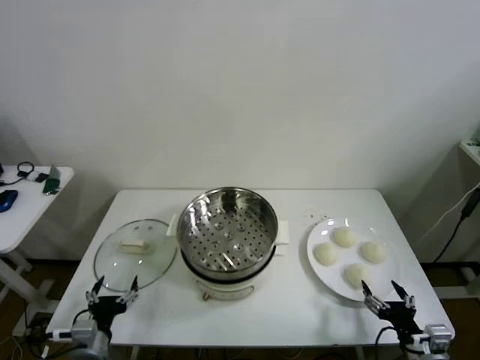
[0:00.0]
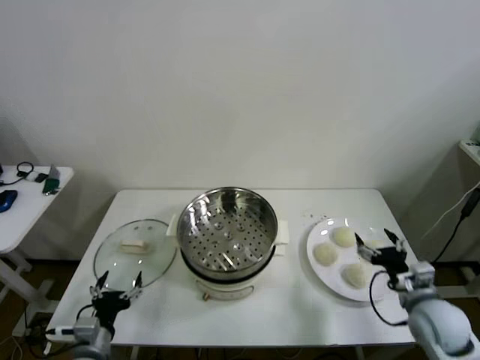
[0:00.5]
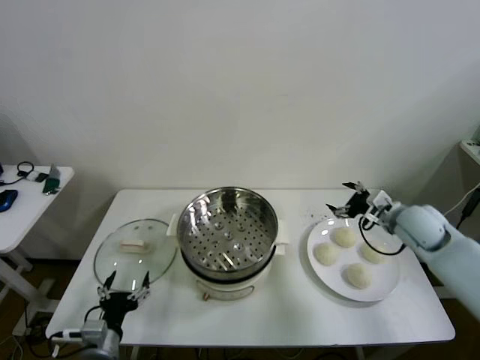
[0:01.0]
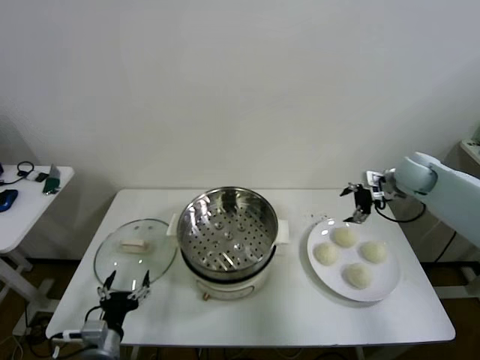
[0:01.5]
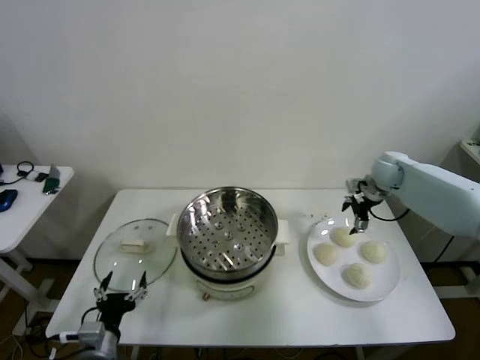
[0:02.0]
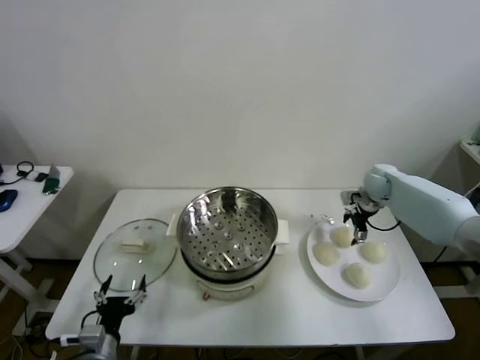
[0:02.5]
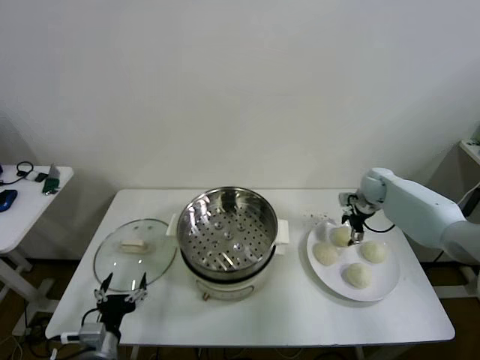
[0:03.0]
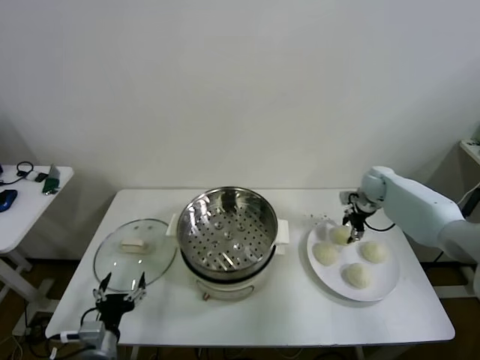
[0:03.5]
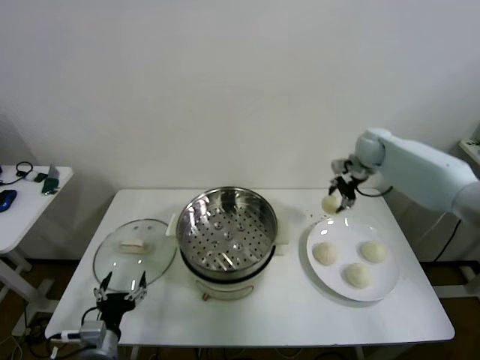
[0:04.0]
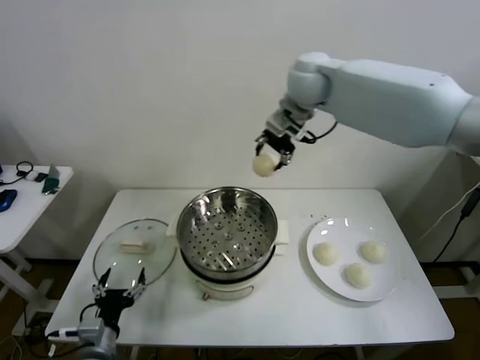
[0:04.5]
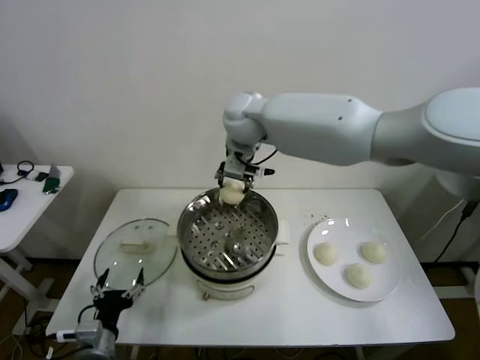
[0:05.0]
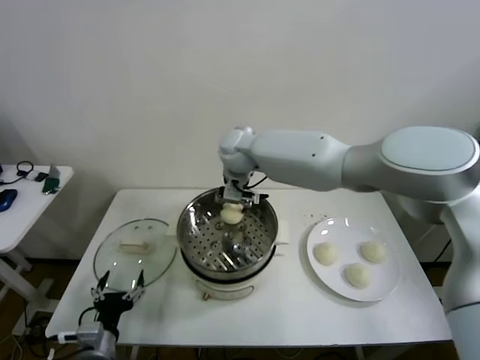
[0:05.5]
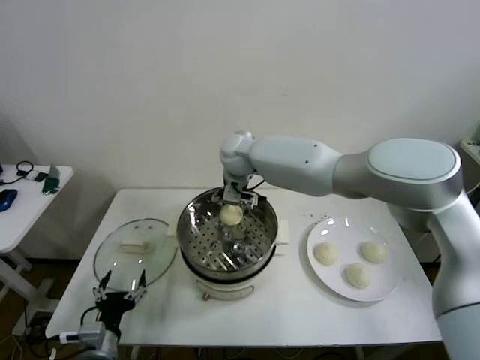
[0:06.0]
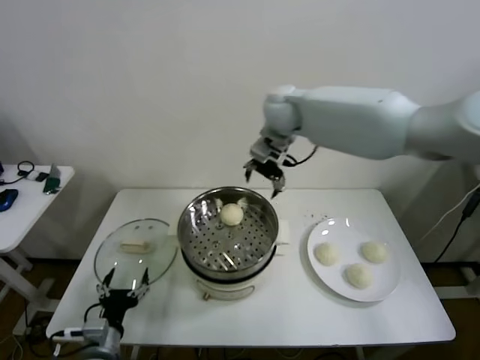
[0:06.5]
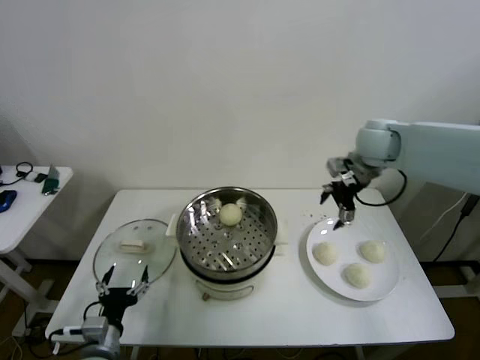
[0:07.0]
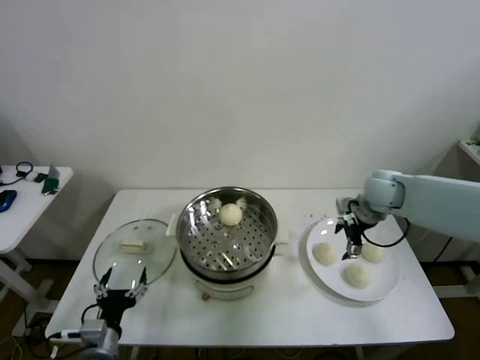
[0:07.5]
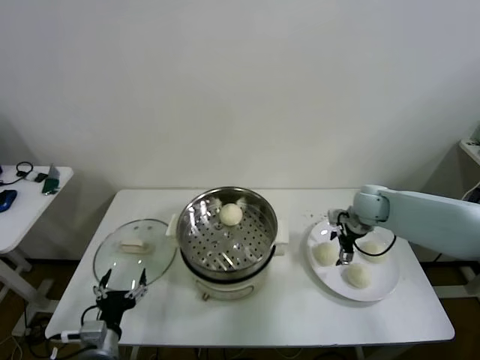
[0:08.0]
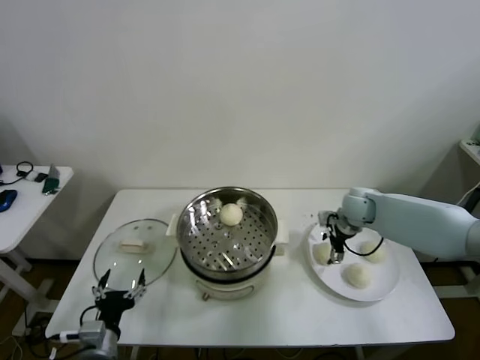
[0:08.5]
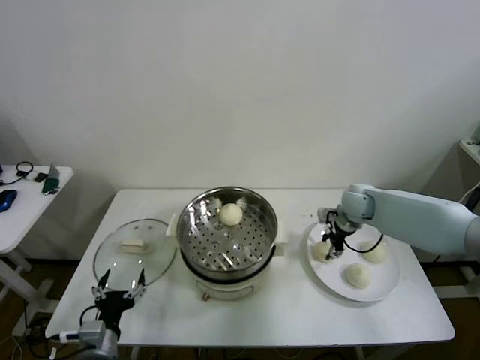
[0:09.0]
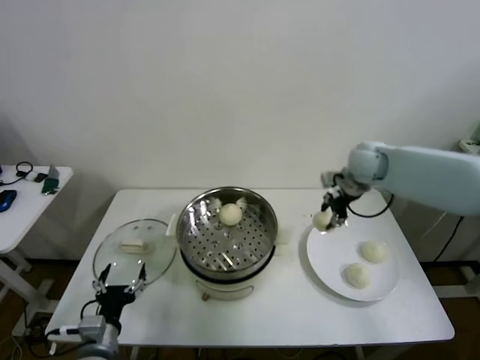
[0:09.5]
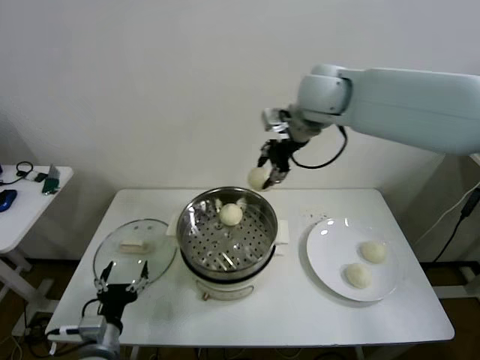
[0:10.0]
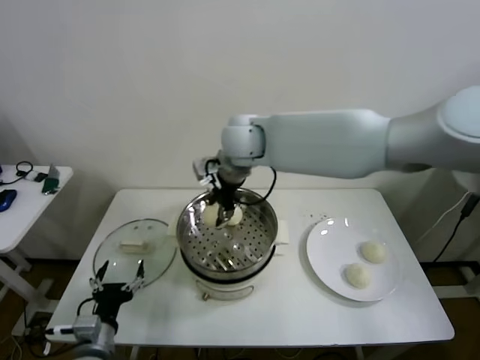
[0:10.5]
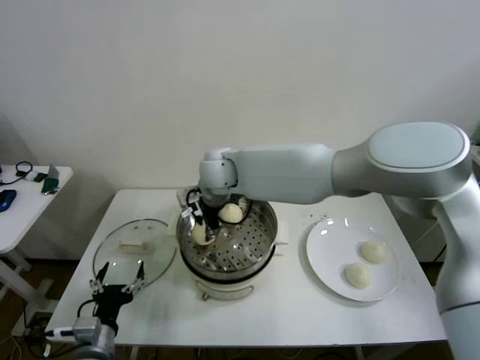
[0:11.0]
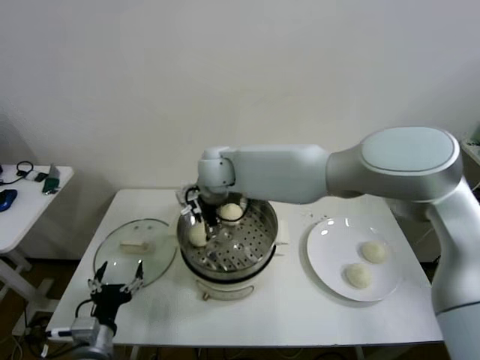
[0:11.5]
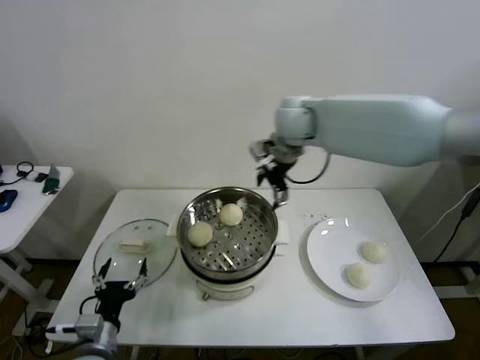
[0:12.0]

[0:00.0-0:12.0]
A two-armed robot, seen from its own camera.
Step, 0.0 to 3.0 s: Grasp the baozi in the plate with right gripper.
Step, 3.5 to 5.5 s: Place the baozi on the steamer with right gripper.
Step, 6.0 to 8.5 s: Grasp the baozi in the plate with right gripper.
Step, 9.0 to 11.0 s: Place the baozi on the steamer with right gripper.
2.0 to 4.0 s: The right gripper goes about 20 cm upward and to the left, and closes.
4.0 to 6.0 s: The right gripper moves to the left, some 25 cm, and opens its fingers.
6.0 to 8.0 s: The right gripper heads to the right and downward, covering approximately 35 cm.
8.0 to 10.0 s: The right gripper heads upward and to the left, covering some 35 cm, and closes up.
10.0 to 12.0 s: The right gripper heads to the right and downward, covering some 10 cm, and opens.

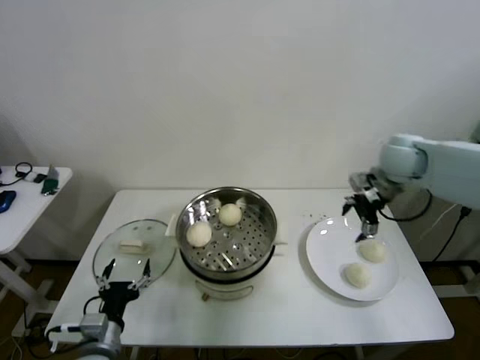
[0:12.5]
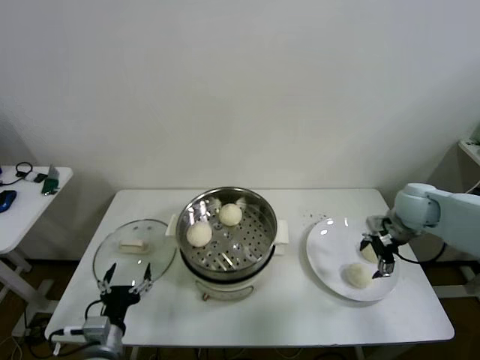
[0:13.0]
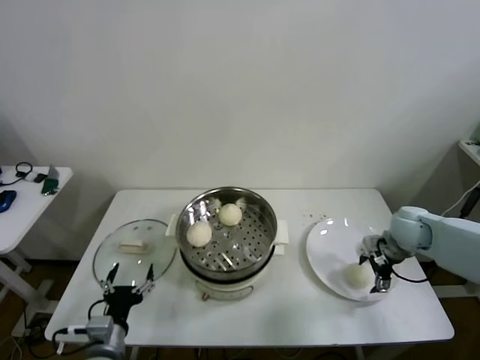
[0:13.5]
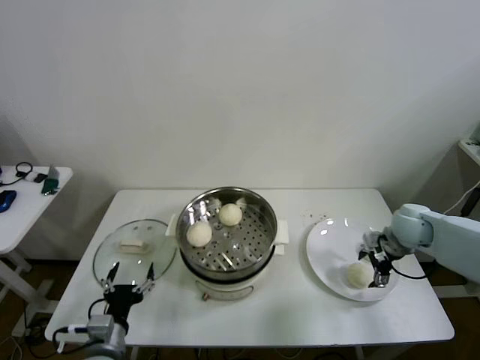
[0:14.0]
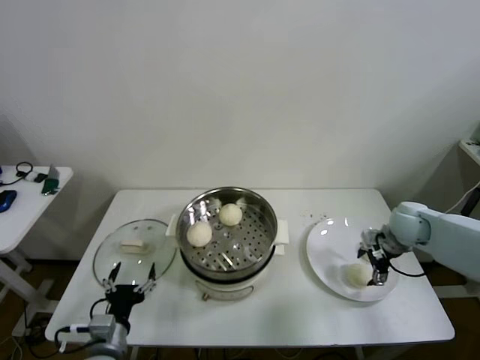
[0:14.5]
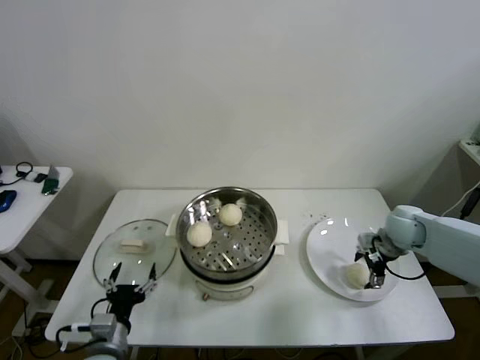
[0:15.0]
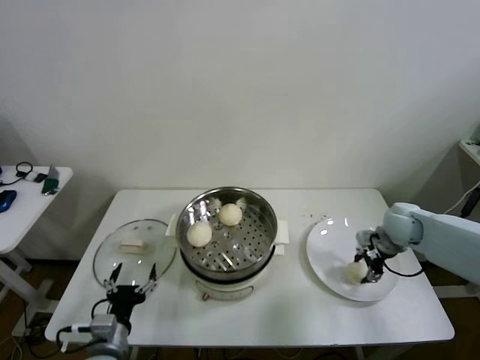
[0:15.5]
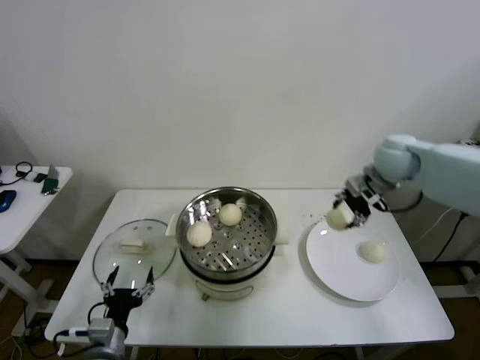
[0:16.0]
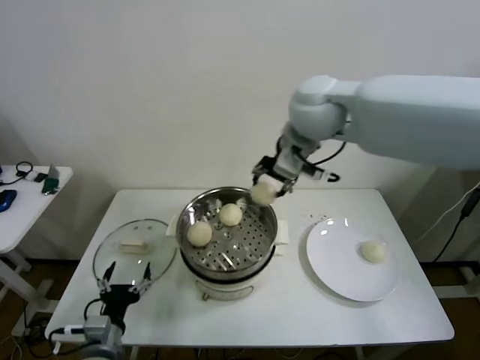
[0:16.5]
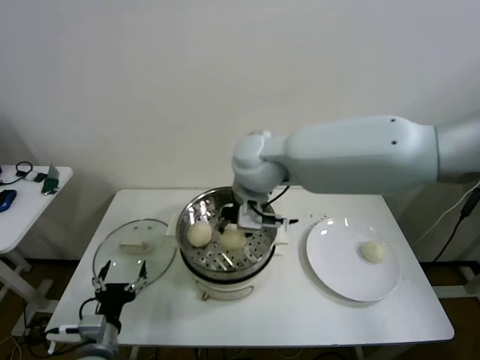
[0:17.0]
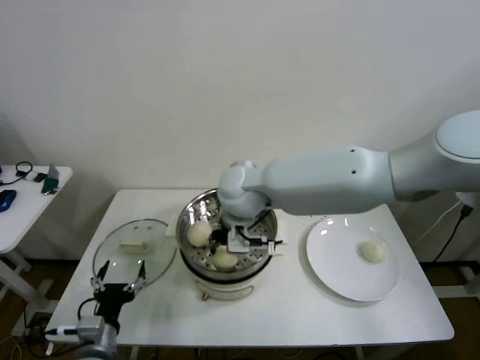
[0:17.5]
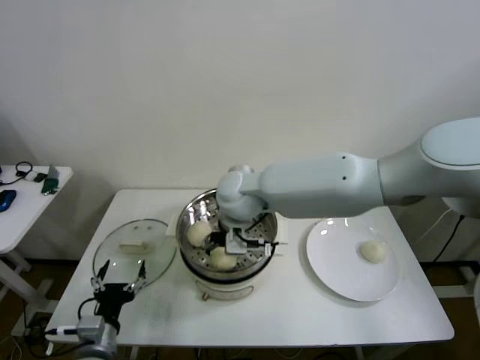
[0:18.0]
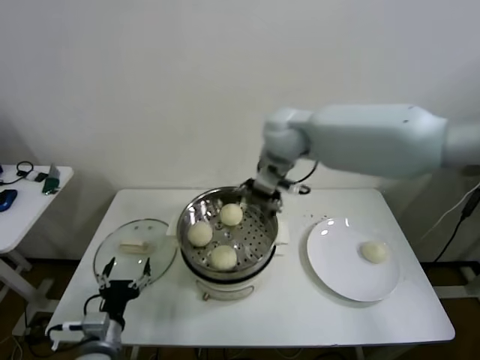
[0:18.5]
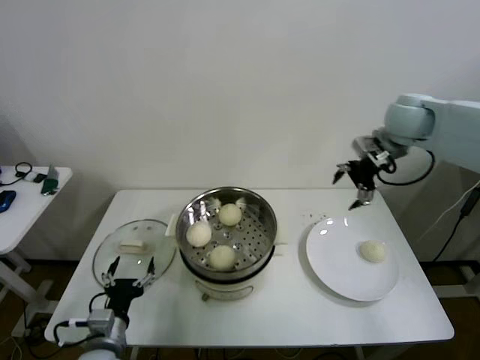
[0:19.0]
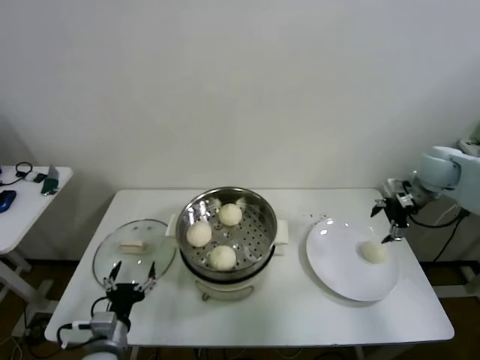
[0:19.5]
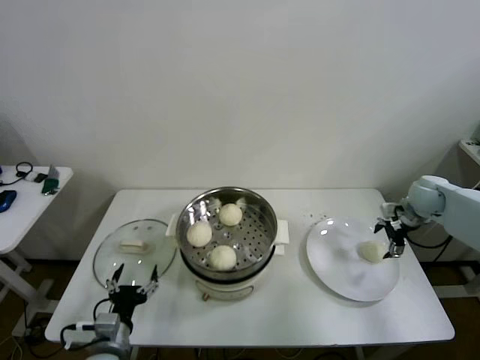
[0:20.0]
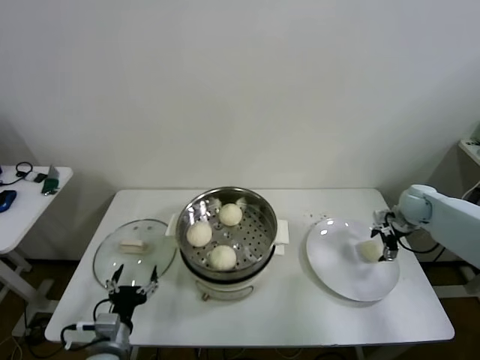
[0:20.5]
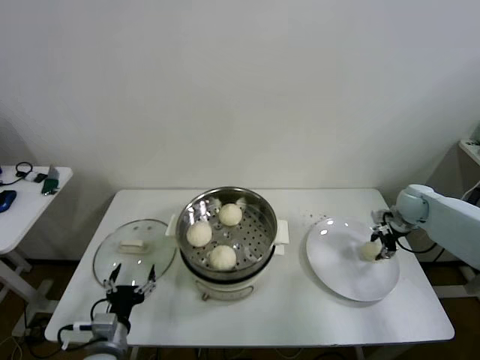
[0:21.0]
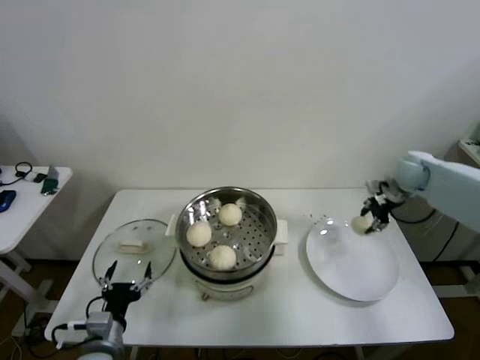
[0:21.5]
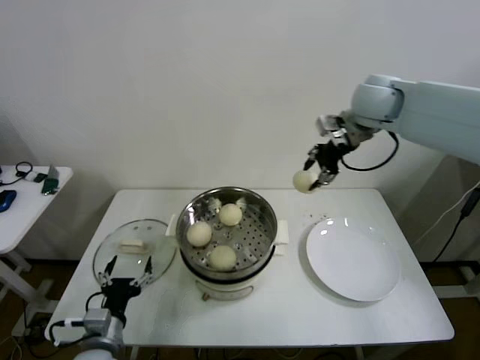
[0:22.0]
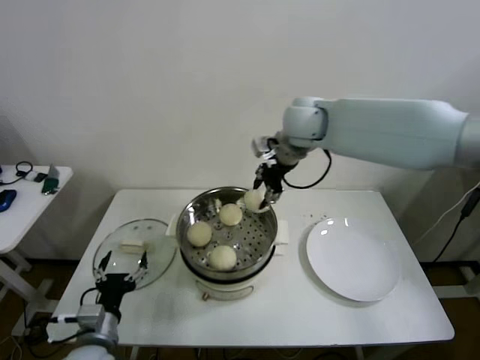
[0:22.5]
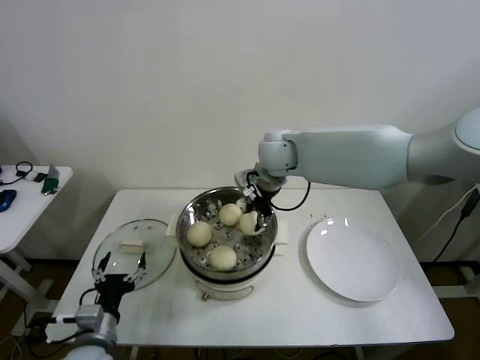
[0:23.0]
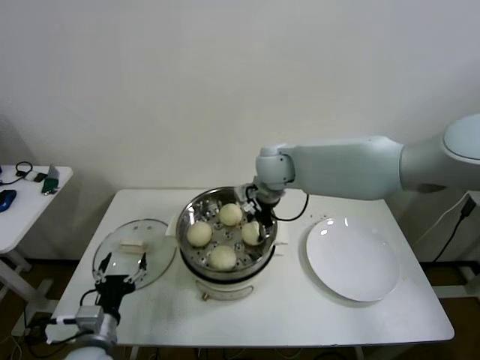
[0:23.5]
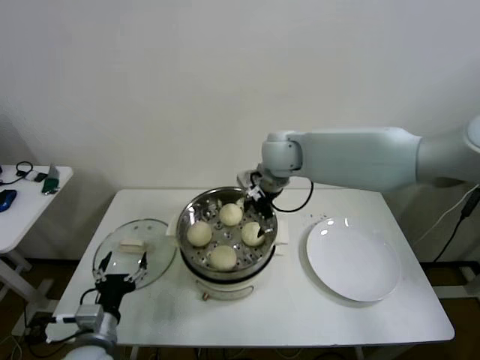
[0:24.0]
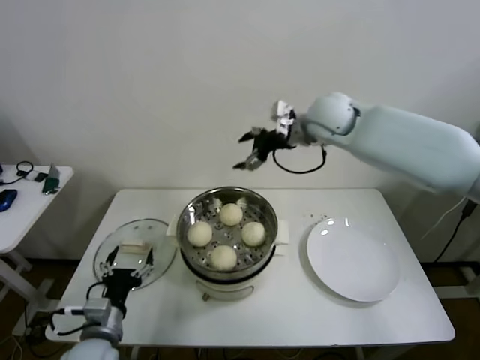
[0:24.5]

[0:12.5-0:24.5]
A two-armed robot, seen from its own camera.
Step, 12.5 to 15.0 s: Grasp the baozi in the plate with right gripper.
Step, 15.5 to 17.5 s: Place the baozi on the steamer with right gripper.
Step, 18.5 to 20.5 s: Grasp the baozi in the plate with right gripper.
Step, 21.0 to 23.5 s: Place the baozi on the steamer with right gripper.
12.5 to 14.5 s: The right gripper moves downward, some 15 cm.
14.5 to 16.5 s: The right gripper moves to the left and upward, approximately 40 cm, and closes up.
16.5 to 18.5 s: The right gripper goes roughly 5 cm forward, travels downward and back again, about 15 cm each way, and opens up.
18.5 to 20.5 s: The right gripper goes roughly 40 cm to the right and downward.
20.5 to 22.5 s: The right gripper shifts roughly 40 cm to the left and upward, and closes.
22.5 to 24.5 s: The right gripper is displaced to the right by about 5 cm, and opens its fingers.

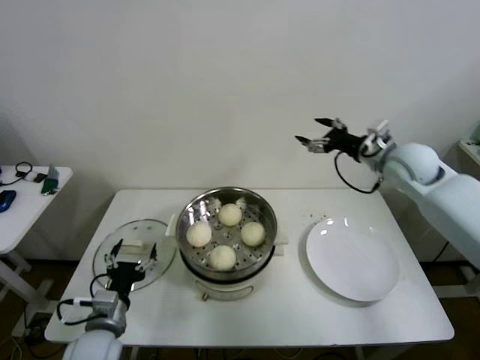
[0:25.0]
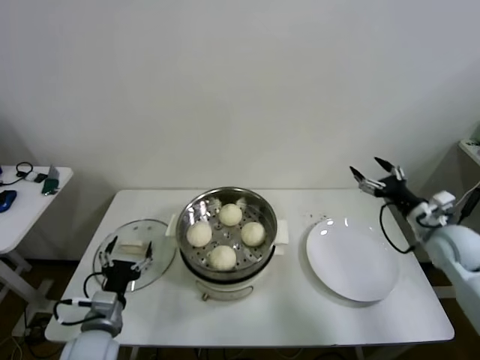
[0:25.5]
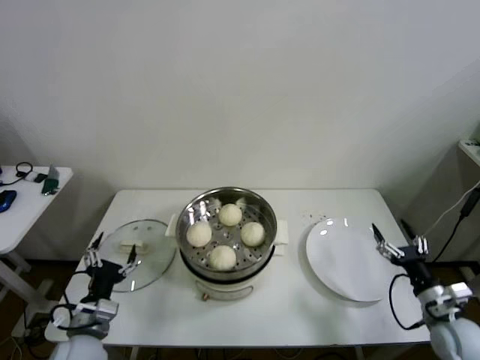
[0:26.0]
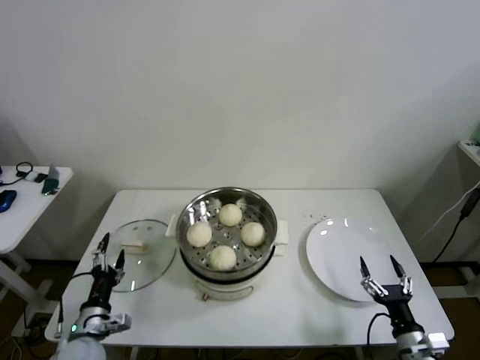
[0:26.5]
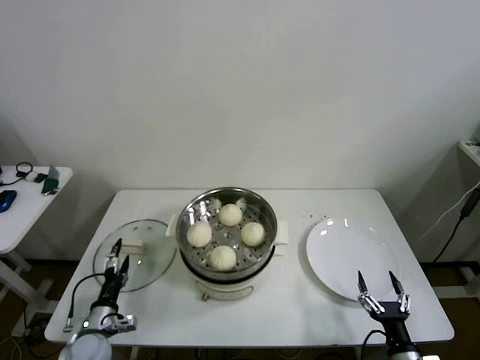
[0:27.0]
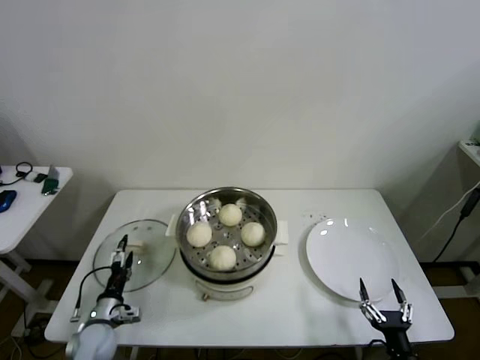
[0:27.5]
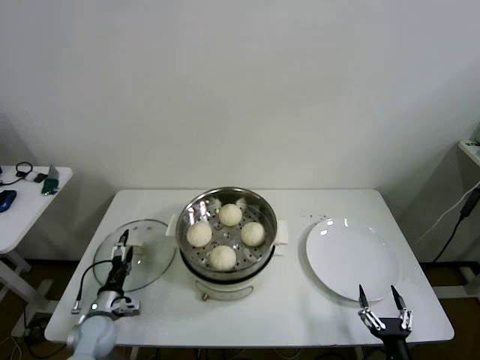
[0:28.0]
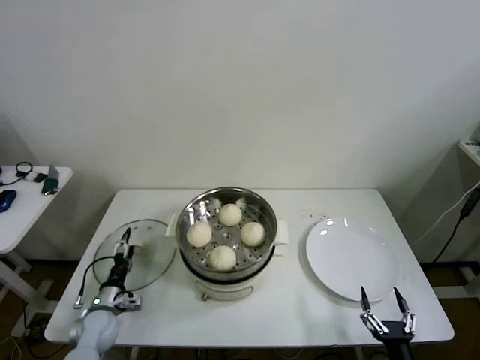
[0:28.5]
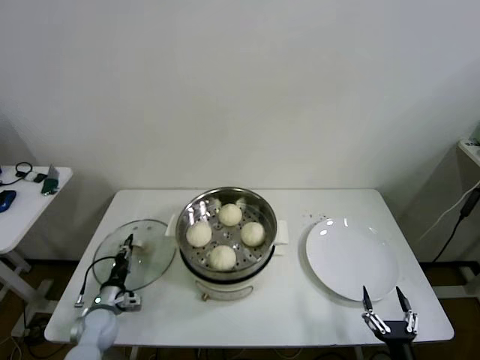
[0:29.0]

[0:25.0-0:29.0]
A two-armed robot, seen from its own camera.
25.0 to 27.0 s: The left gripper heads downward and to the left, covering some 15 cm, while the right gripper goes roughly 50 cm backward and downward.
27.0 to 29.0 s: The left gripper goes roughly 5 cm forward, and closes.
